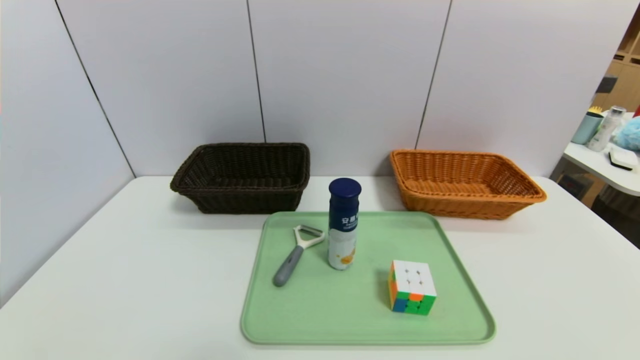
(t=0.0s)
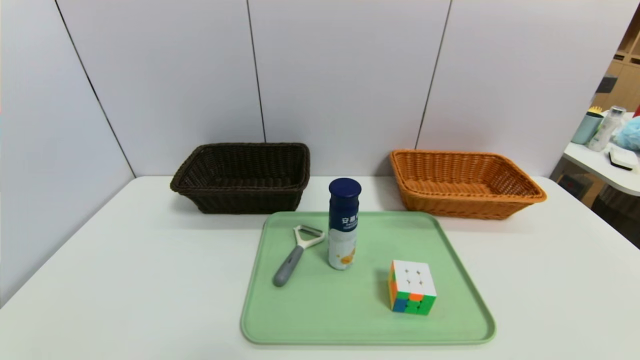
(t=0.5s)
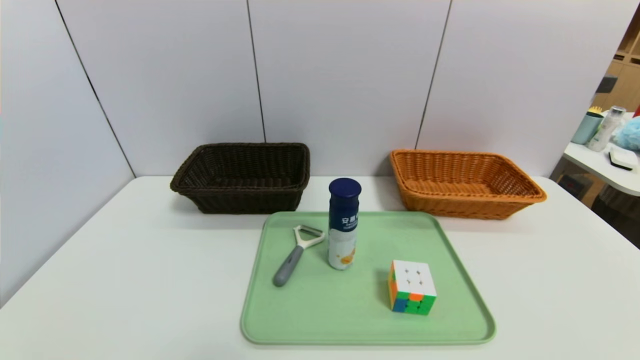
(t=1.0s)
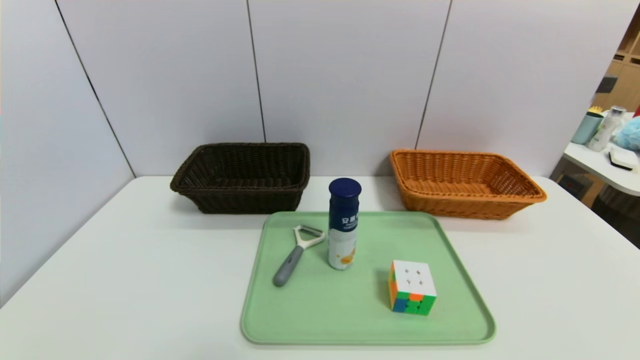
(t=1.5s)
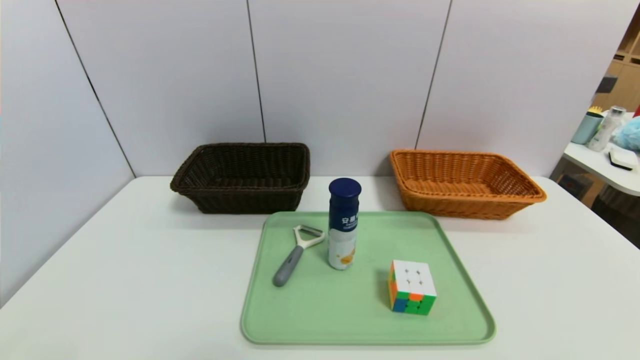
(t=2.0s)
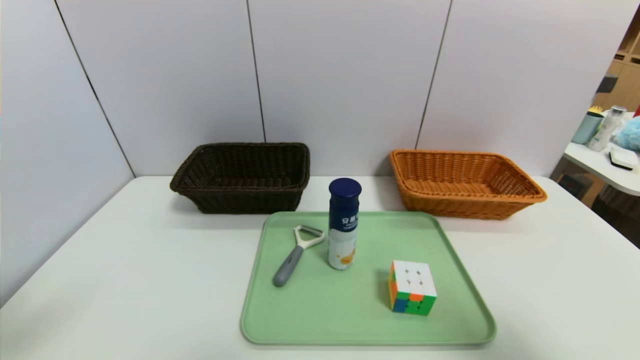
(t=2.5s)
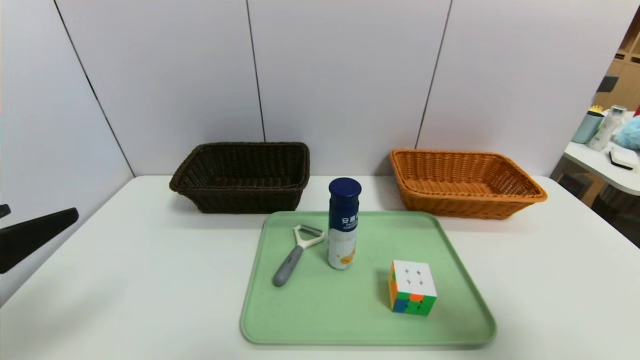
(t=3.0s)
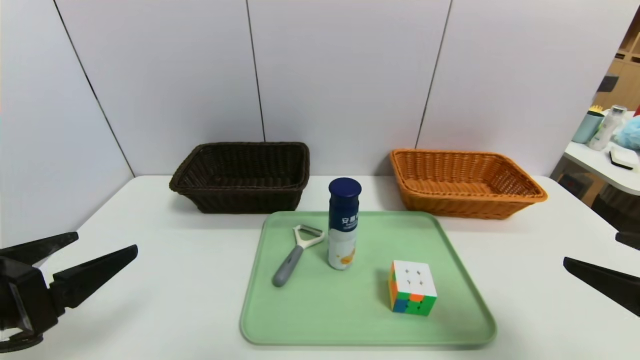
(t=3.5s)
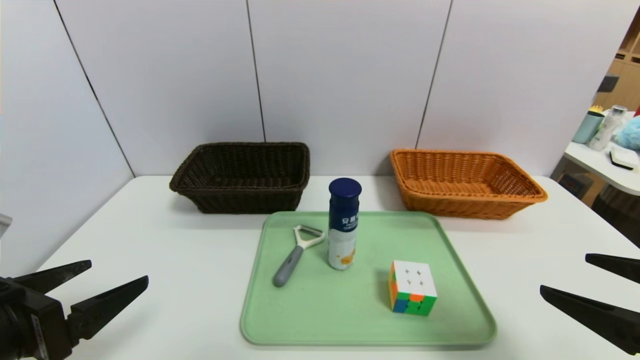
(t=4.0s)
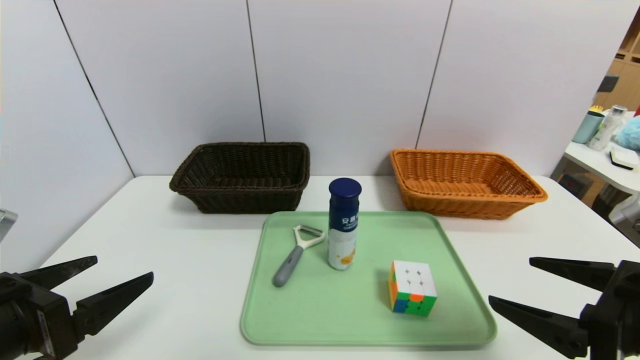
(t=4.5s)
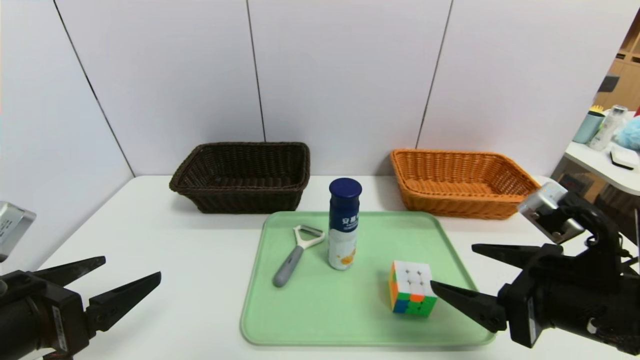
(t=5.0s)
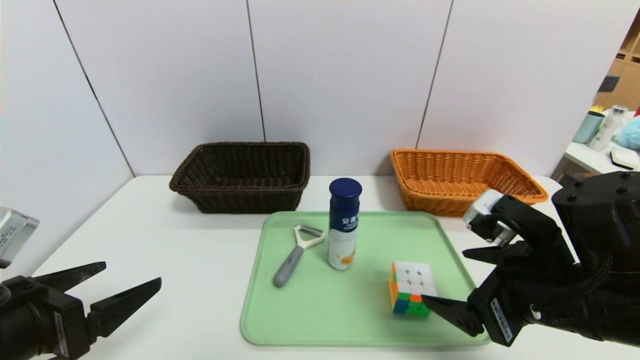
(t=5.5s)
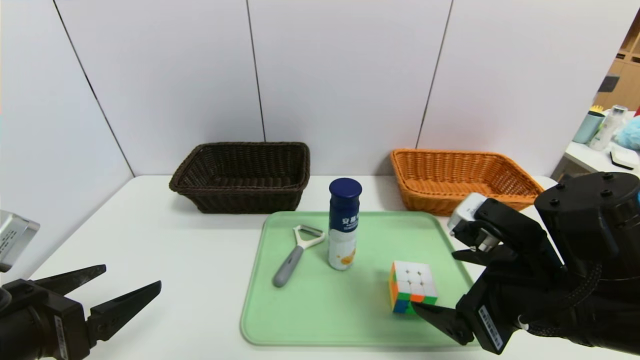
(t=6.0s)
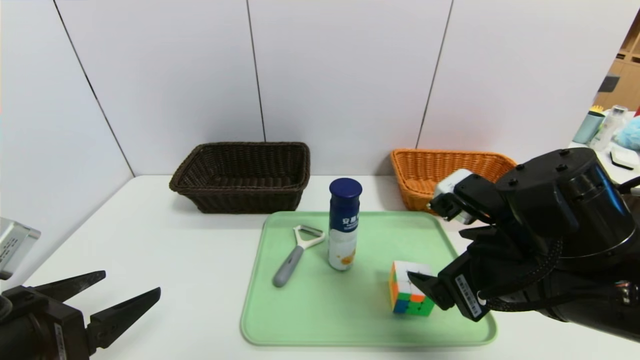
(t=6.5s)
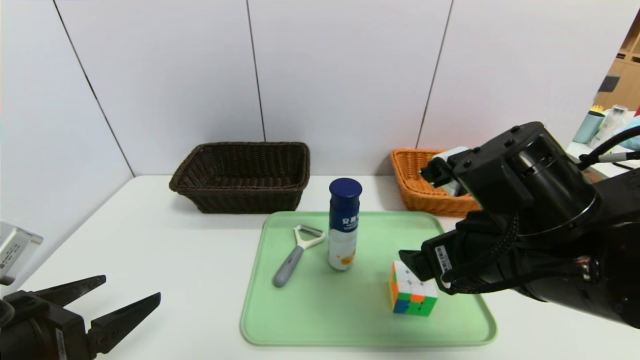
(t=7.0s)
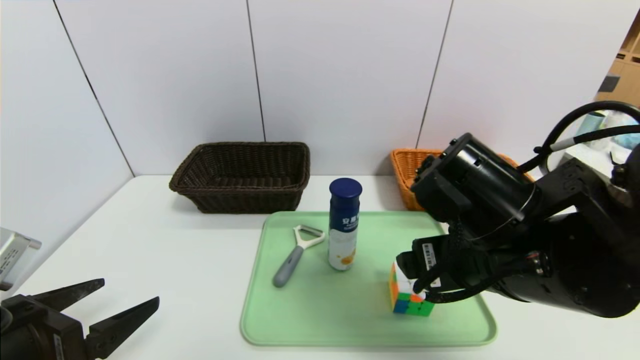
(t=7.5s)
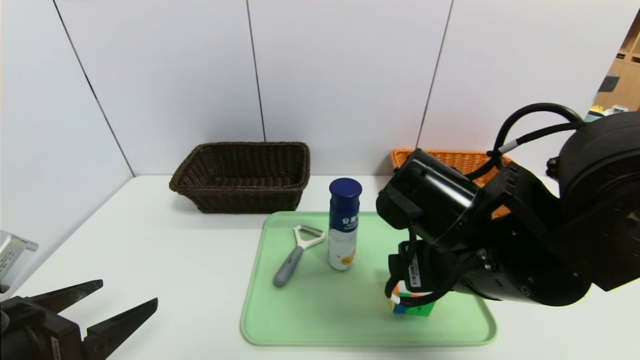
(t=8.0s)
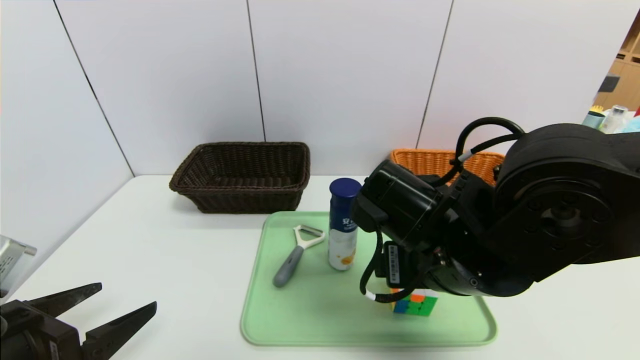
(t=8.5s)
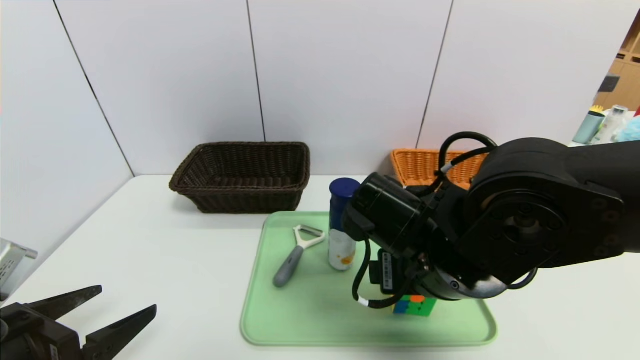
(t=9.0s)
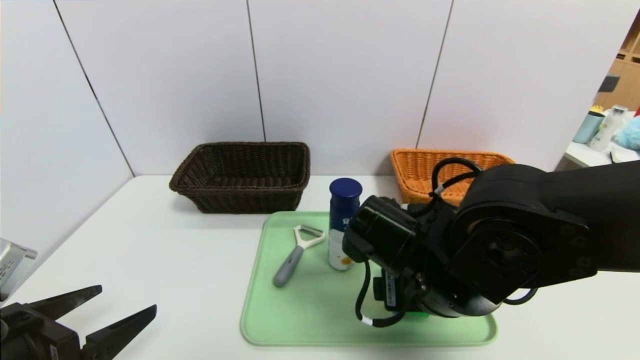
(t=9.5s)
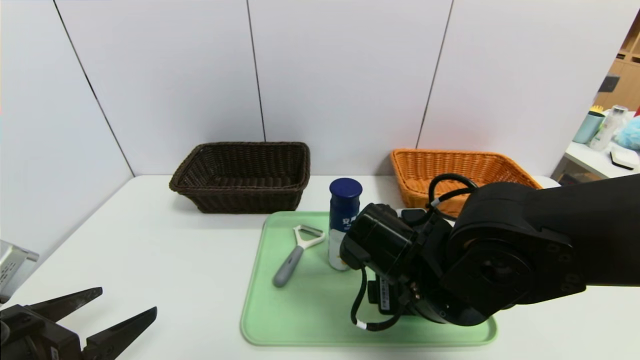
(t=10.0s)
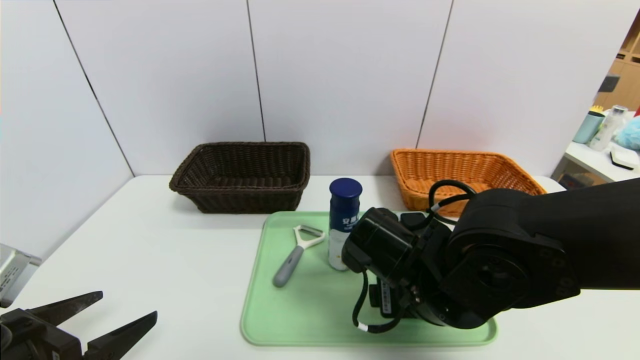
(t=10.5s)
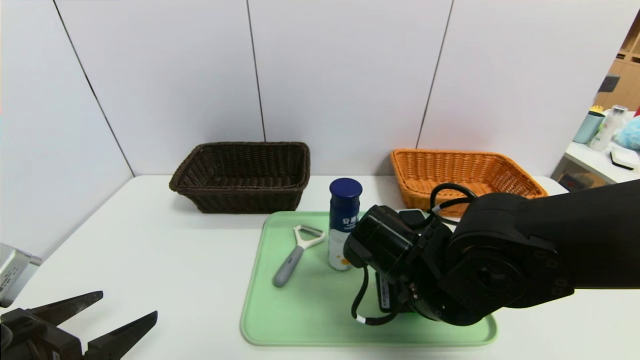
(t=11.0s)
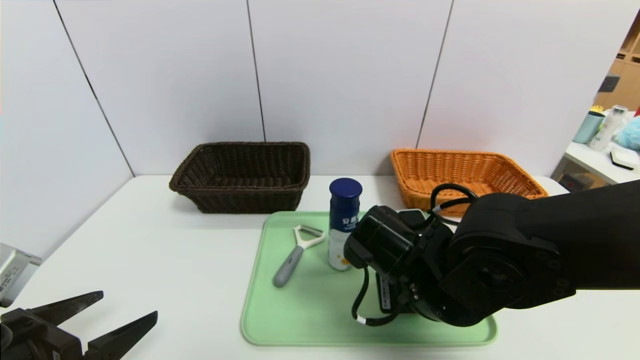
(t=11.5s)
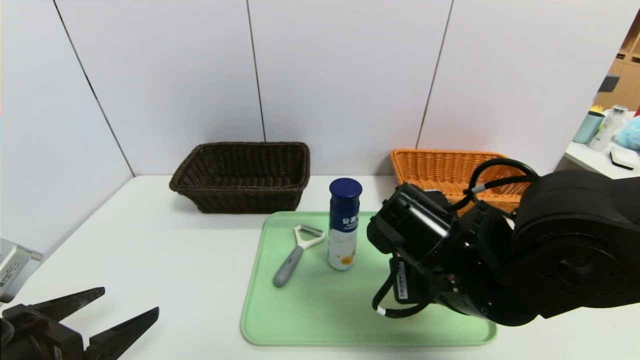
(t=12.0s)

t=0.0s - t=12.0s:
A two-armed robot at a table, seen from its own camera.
Task of the whole recording: place the food in the right basket with the right gripper, and place the non food items in the left basket with the left gripper.
t=2.0s - t=4.0s: The two grippers go some 10 cm forward.
t=4.0s - t=6.0s: The right gripper heads to the left and forward, covering approximately 10 cm.
t=6.0s - t=8.0s: The right gripper shifts approximately 10 cm to the left.
t=8.0s - t=10.0s: The right gripper is displaced downward by some 5 cm.
t=10.0s - t=12.0s: The right gripper closes its fingers.

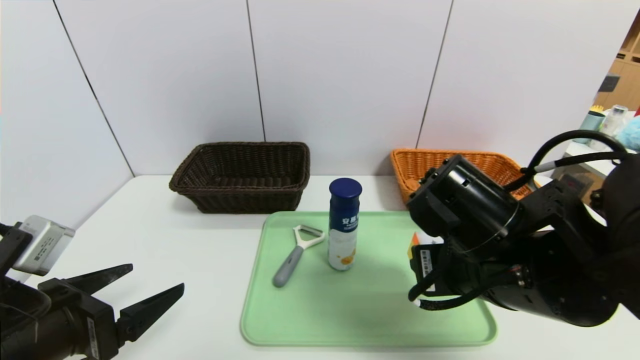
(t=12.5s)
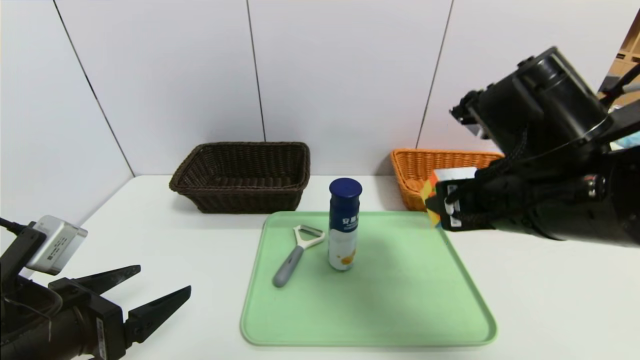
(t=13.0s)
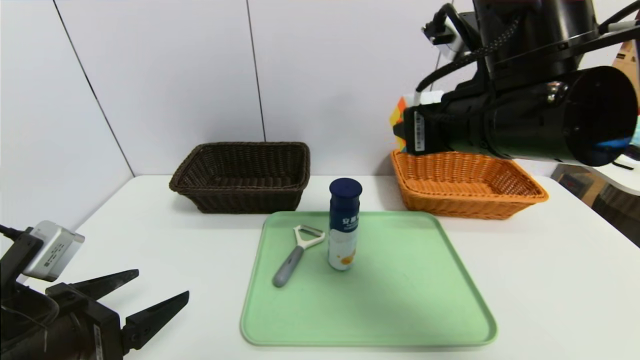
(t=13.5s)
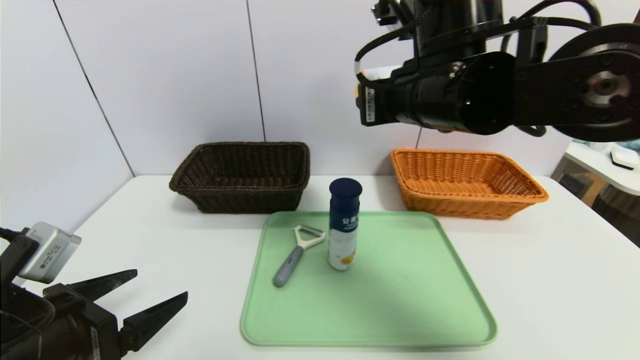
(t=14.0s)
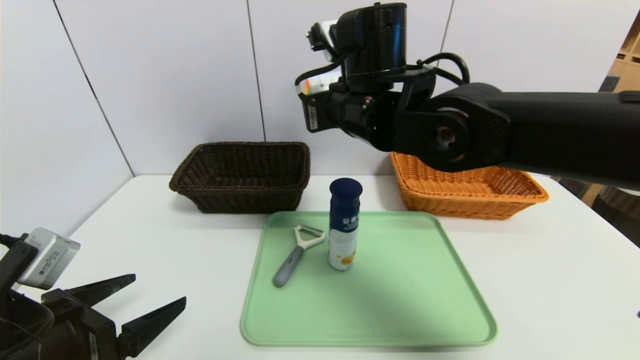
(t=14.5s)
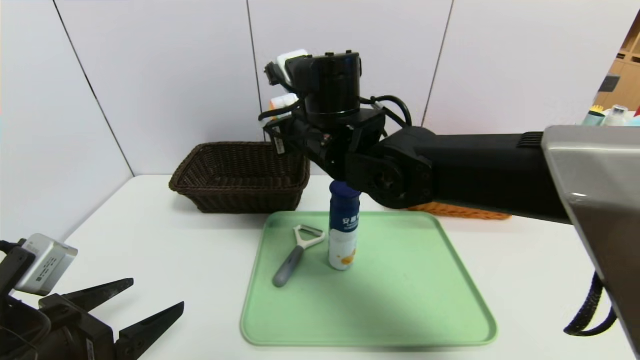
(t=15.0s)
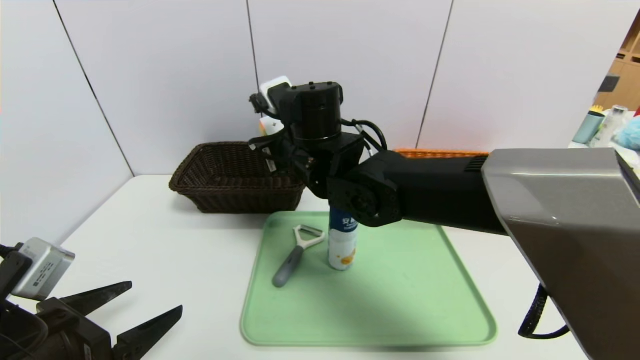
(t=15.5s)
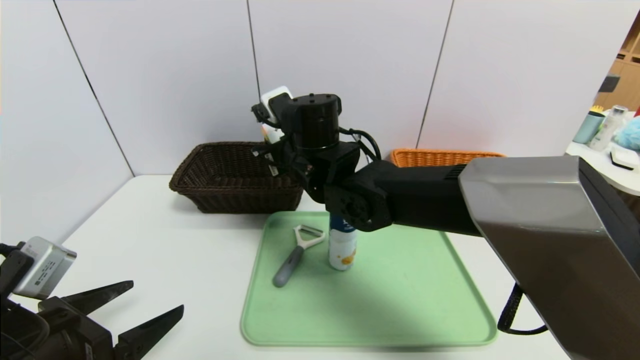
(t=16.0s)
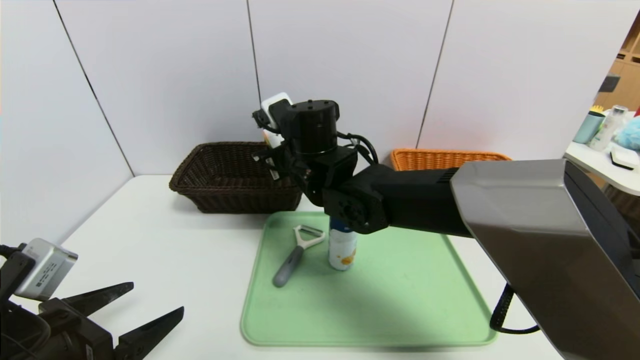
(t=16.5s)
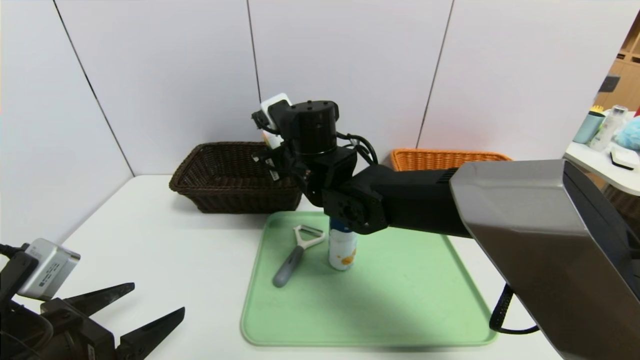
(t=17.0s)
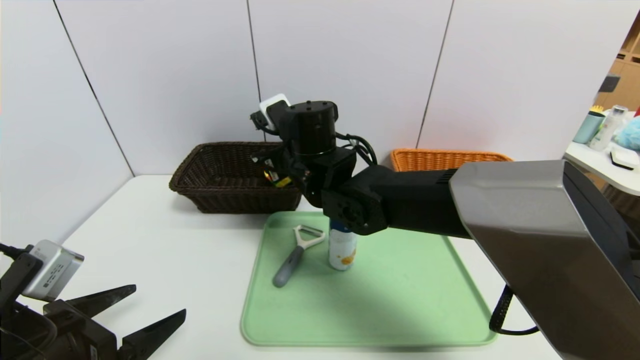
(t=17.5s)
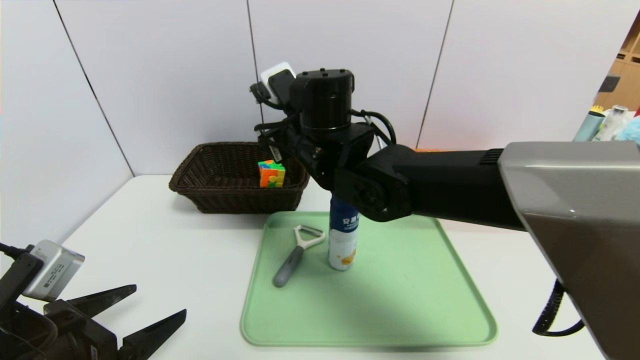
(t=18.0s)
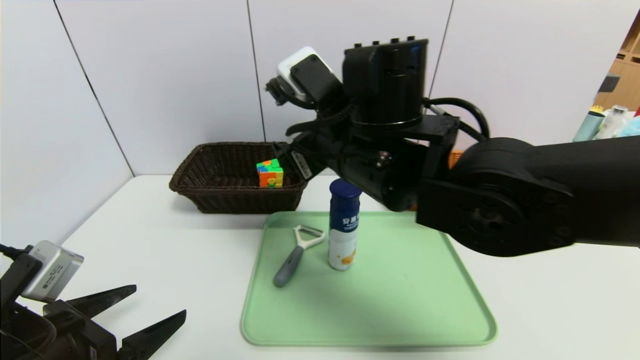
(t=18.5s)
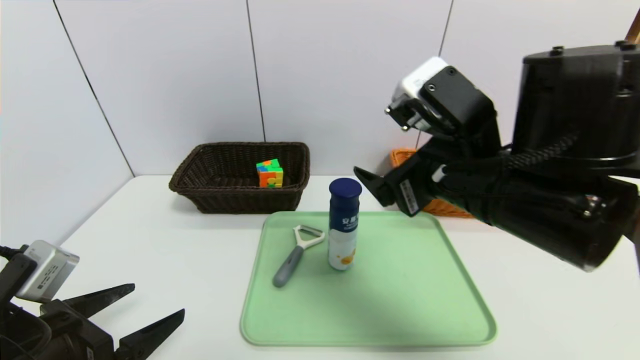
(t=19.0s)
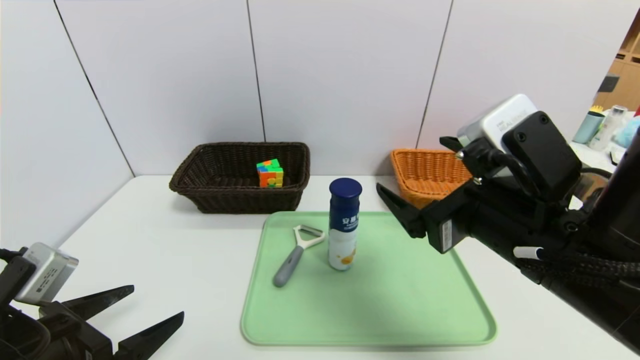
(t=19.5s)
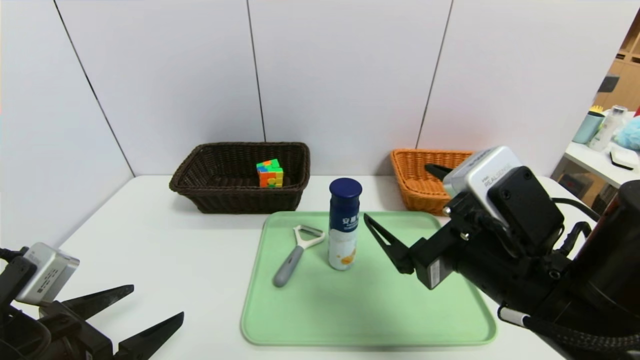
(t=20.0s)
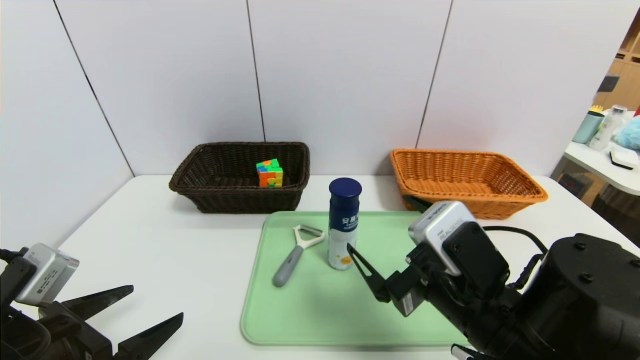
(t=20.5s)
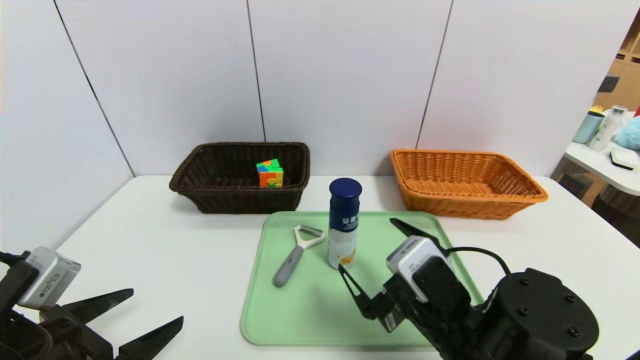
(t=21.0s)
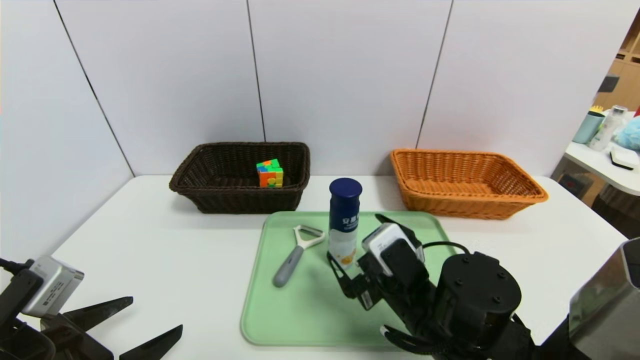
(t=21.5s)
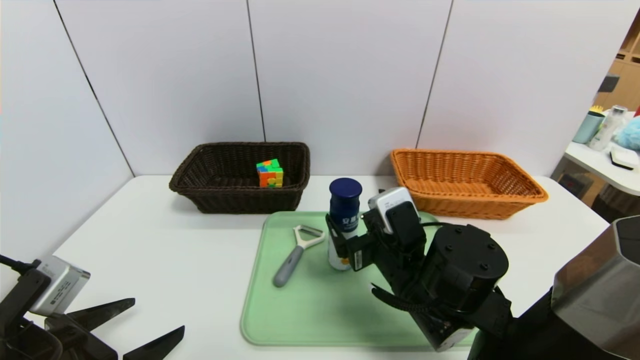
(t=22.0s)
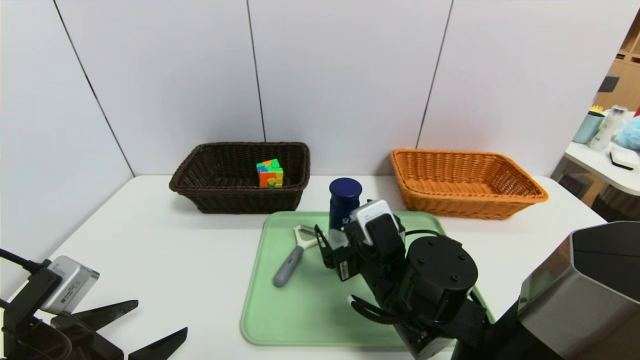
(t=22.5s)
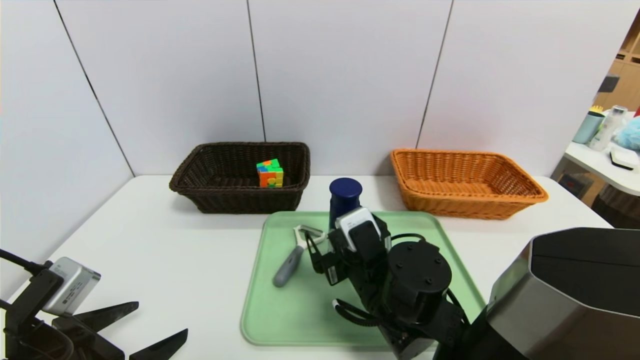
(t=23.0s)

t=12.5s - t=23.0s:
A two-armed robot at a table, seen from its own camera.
Task of the whole recording: place the food in the right basket with the right gripper, and place the non food items in the left basket with the left gripper.
t=12.5s - t=14.5s: The right gripper is displaced forward, to the left and upward by approximately 20 cm.
t=14.5s - t=16.5s: The right gripper is displaced downward and to the left by roughly 10 cm.
t=16.5s - t=19.0s: The right gripper heads to the right and backward, covering approximately 20 cm, and opens up.
t=19.0s - t=21.0s: The right gripper moves downward, about 15 cm.
t=21.0s - t=23.0s: The right gripper heads forward and to the left, covering approximately 10 cm.
